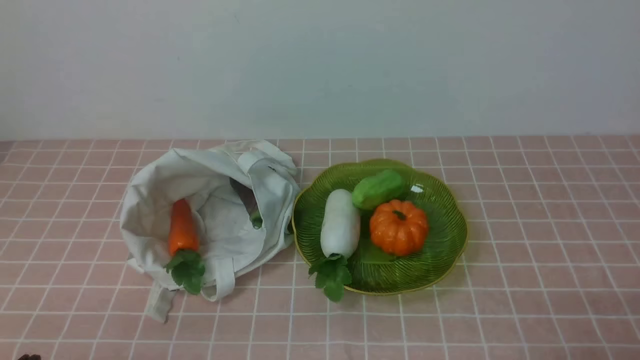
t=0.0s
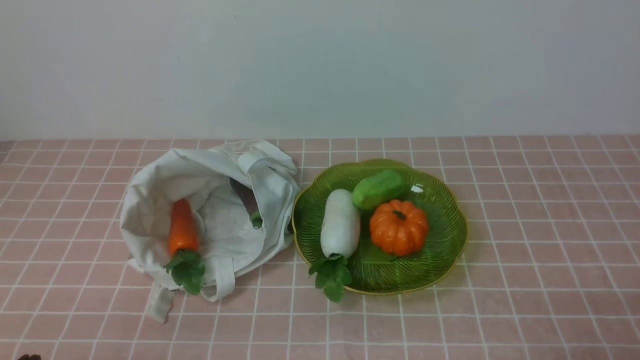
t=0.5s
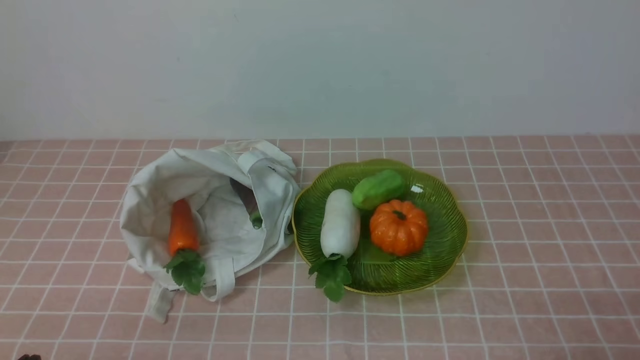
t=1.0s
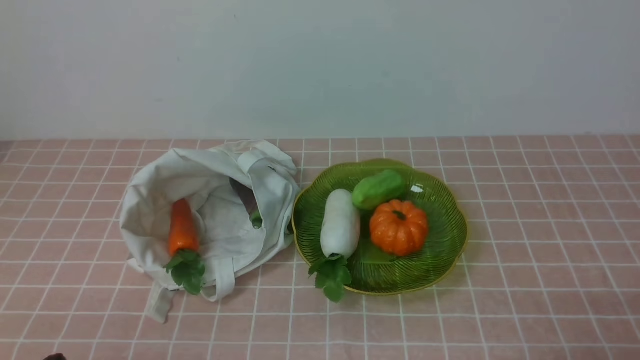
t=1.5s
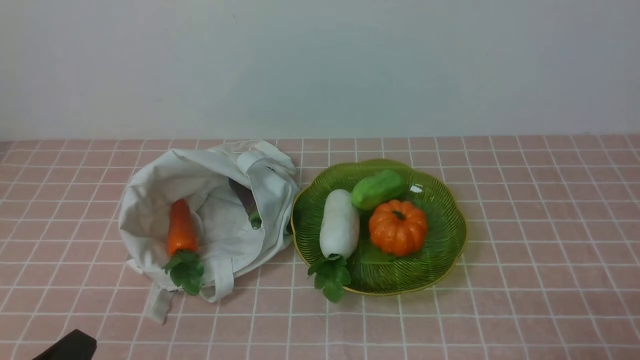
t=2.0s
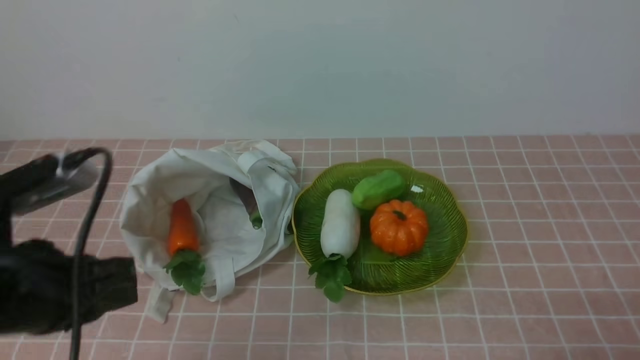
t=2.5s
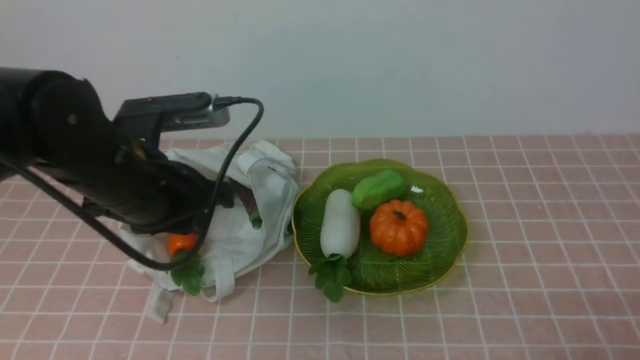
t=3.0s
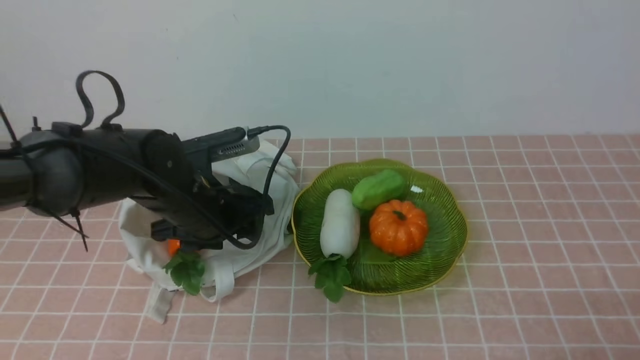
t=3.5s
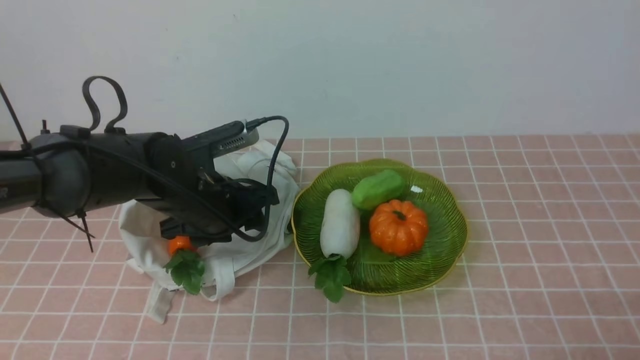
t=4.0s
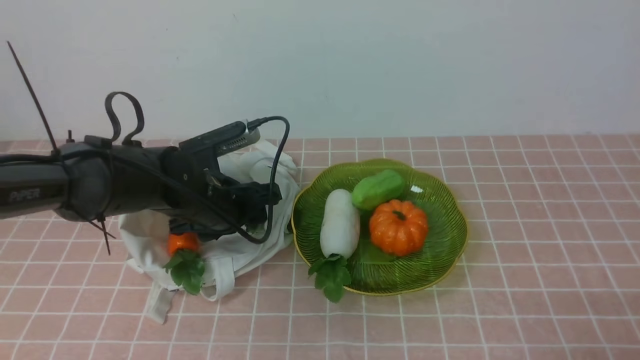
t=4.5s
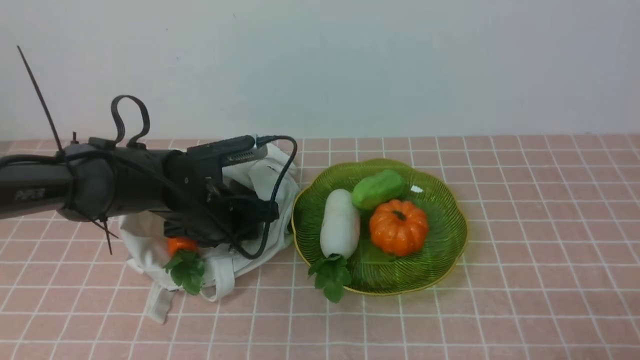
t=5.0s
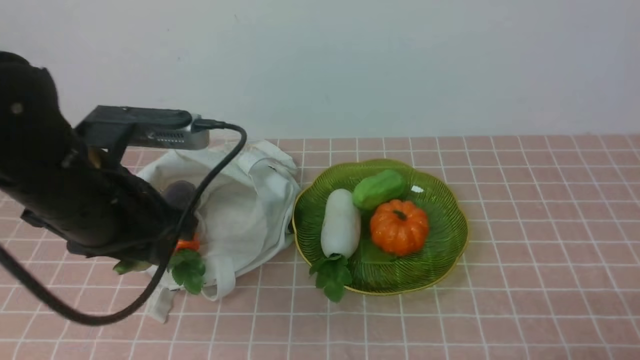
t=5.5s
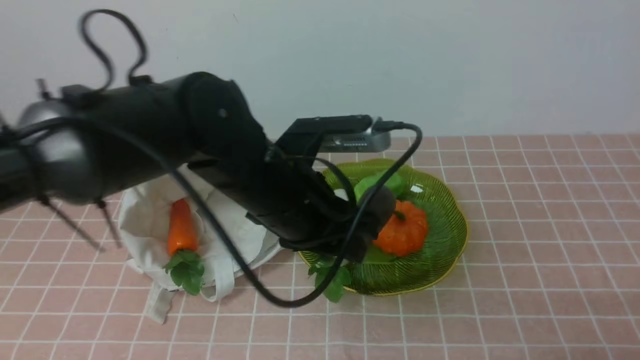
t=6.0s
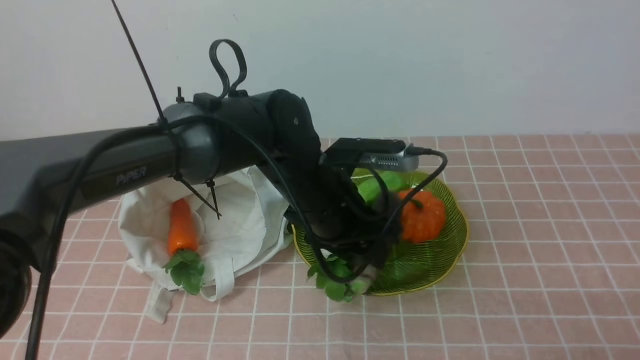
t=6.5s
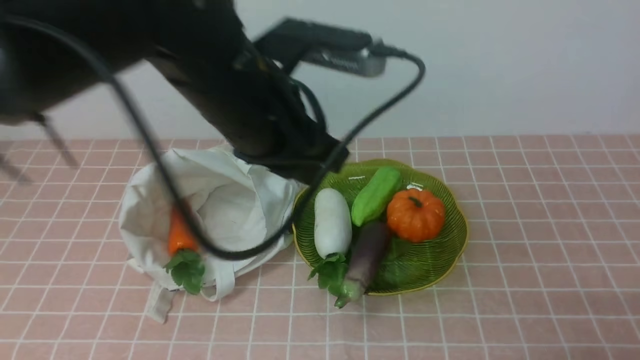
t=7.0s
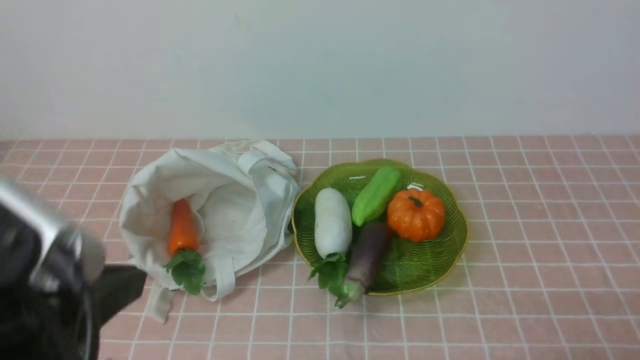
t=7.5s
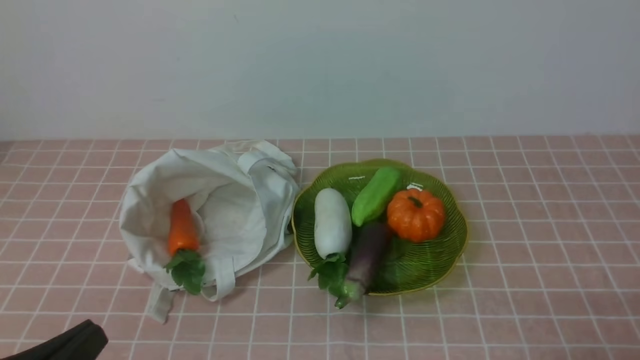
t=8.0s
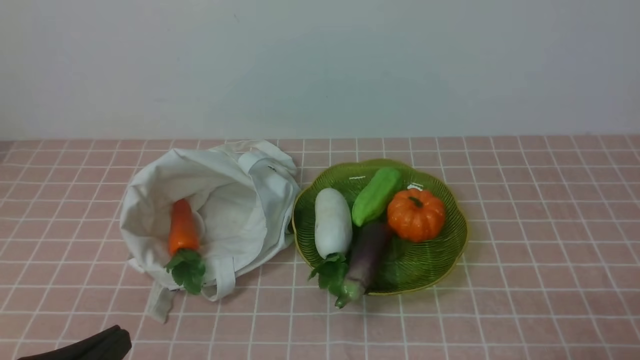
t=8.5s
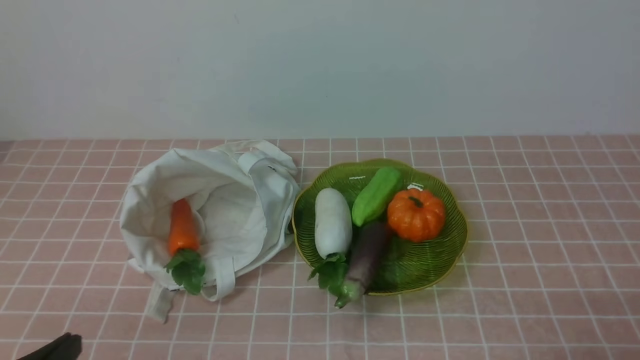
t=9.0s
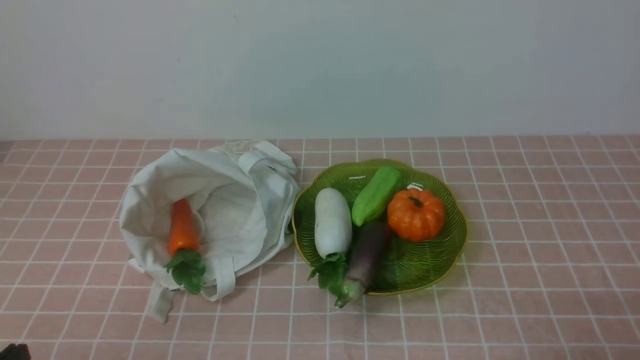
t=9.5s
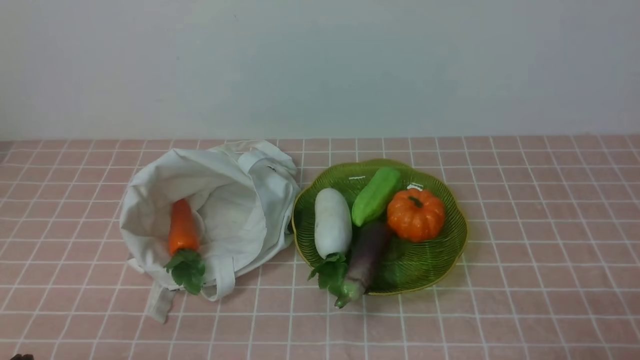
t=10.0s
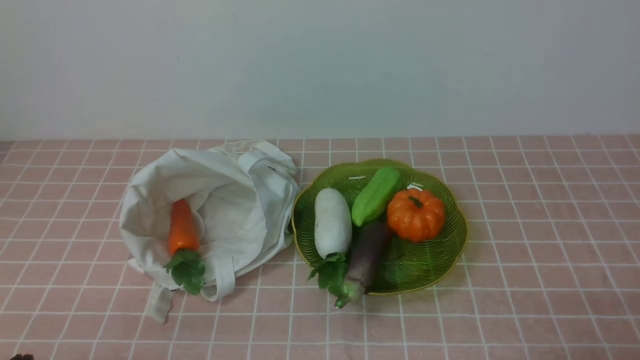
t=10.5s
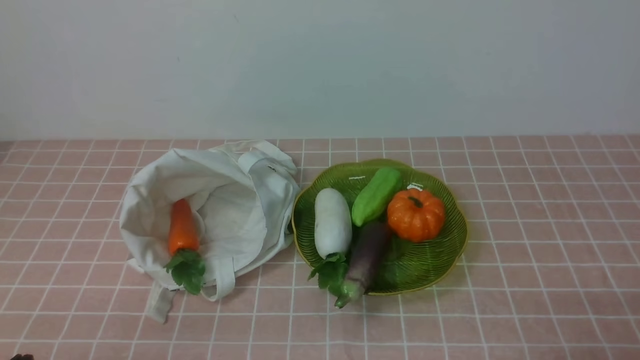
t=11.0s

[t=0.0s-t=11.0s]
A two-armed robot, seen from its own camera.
Task of the whole recording: take vegetables from bag on pink coffee tablecloth place on plate.
Step, t=0.0s to t=4.5s: Grasp the eggplant with left gripper.
Step, t=5.0s to t=6.5s: Place the eggplant on the plate with left gripper.
t=2.0s to t=3.5s: The left gripper goes roughly 30 cm forward, and opens.
t=3.5s to t=5.5s: The left gripper travels upward and backward by some 15 cm, and closes its fingers.
t=5.5s to t=7.5s: The left gripper moves backward, some 15 cm, and closes.
t=7.5s to t=9.0s: The left gripper travels downward by about 15 cm.
